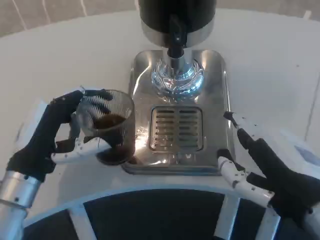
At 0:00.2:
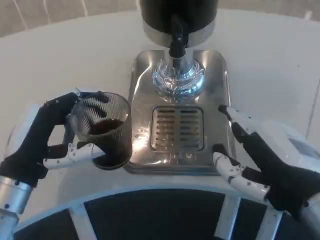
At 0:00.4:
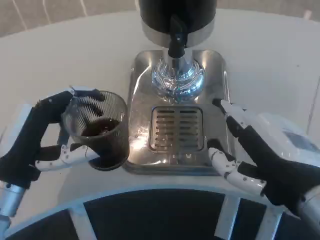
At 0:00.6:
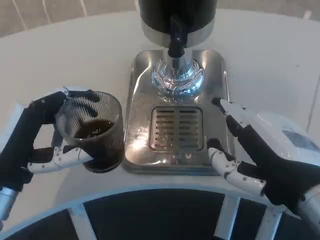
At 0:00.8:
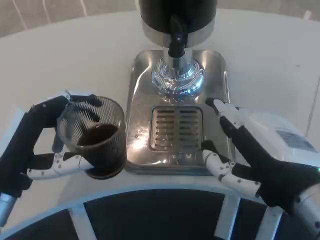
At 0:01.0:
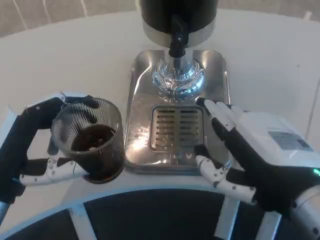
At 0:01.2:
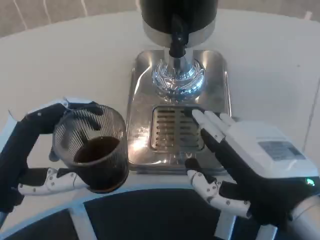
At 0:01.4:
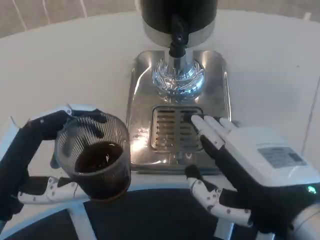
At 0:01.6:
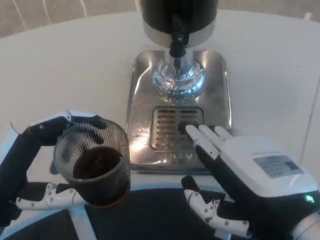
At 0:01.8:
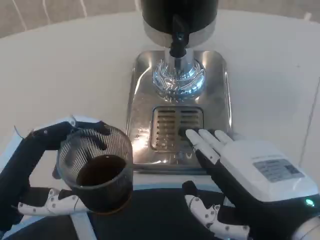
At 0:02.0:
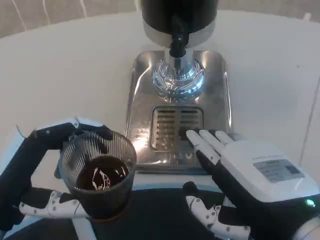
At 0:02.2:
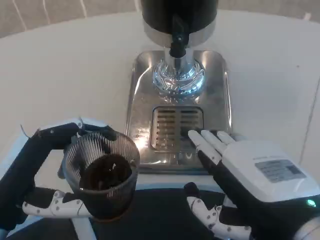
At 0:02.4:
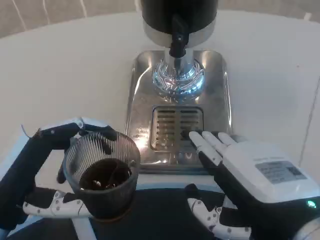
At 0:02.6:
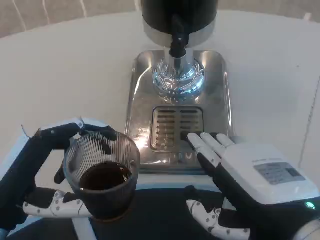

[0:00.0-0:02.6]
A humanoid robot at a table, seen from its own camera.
Task of the whole recording: Grasp the cup under the faucet to collect the drink, then remove the cup.
0:00.0 to 0:01.2: The left hand heads backward, covering roughly 5 cm.

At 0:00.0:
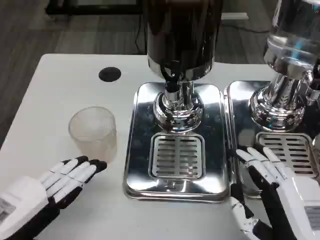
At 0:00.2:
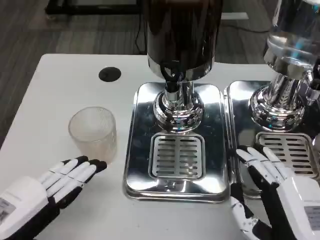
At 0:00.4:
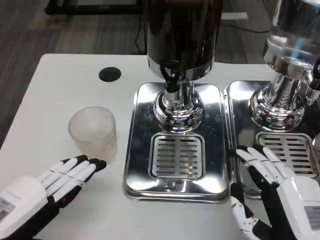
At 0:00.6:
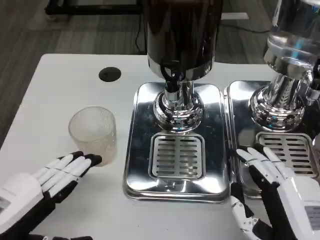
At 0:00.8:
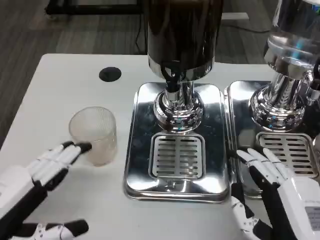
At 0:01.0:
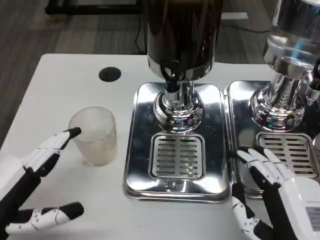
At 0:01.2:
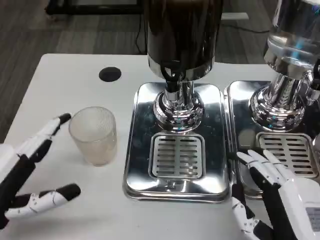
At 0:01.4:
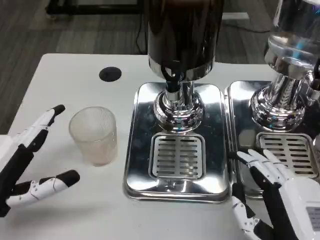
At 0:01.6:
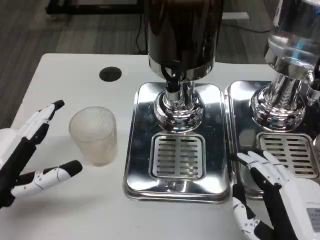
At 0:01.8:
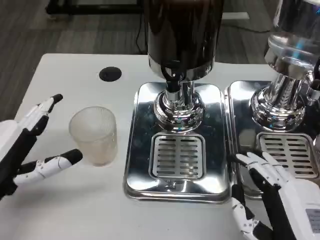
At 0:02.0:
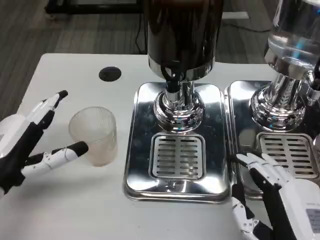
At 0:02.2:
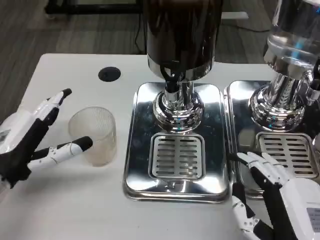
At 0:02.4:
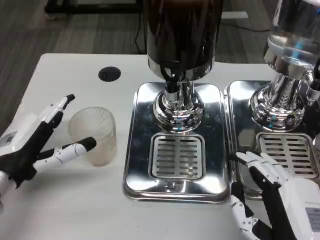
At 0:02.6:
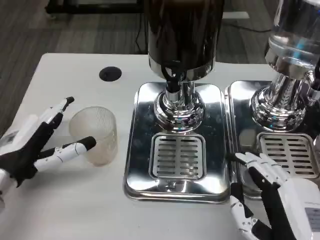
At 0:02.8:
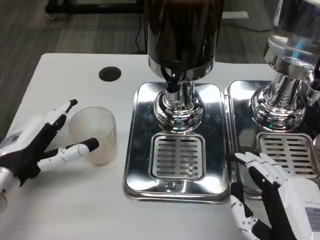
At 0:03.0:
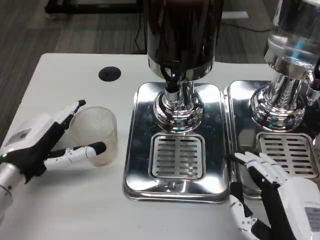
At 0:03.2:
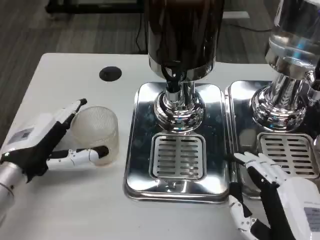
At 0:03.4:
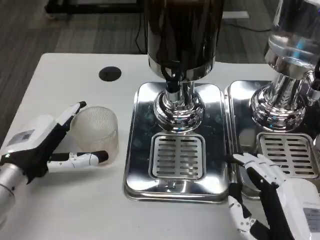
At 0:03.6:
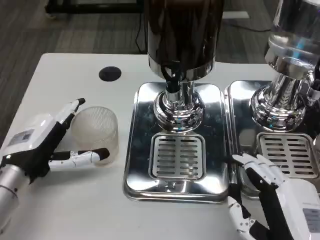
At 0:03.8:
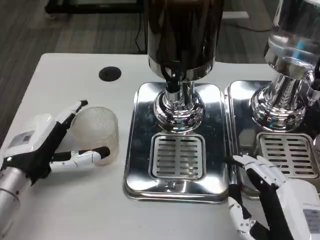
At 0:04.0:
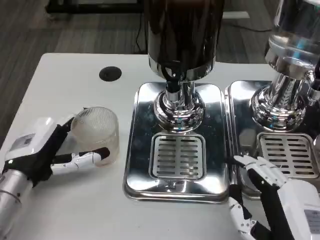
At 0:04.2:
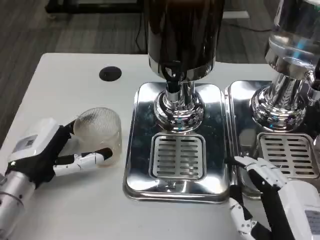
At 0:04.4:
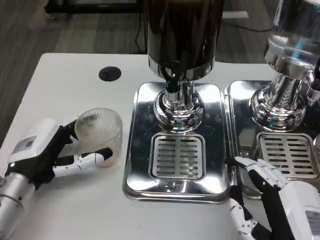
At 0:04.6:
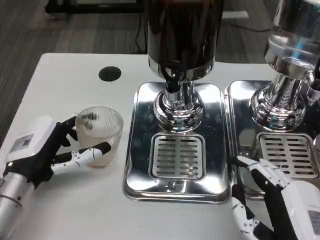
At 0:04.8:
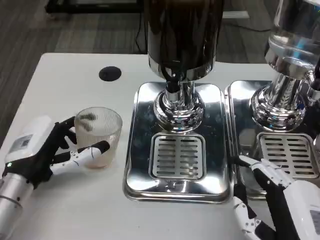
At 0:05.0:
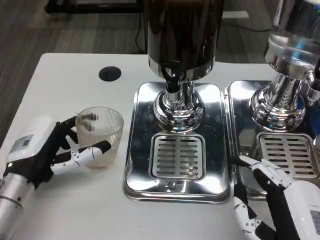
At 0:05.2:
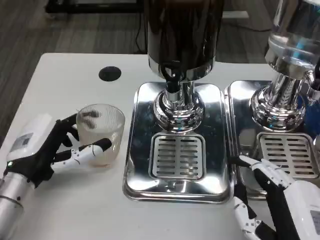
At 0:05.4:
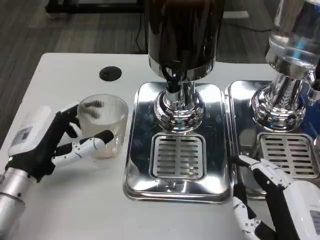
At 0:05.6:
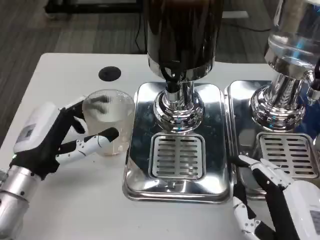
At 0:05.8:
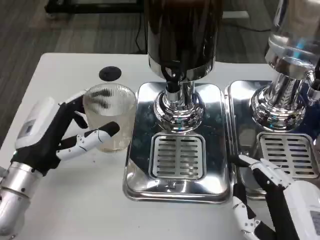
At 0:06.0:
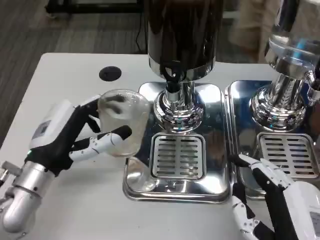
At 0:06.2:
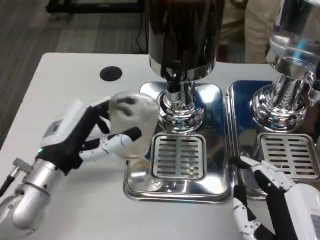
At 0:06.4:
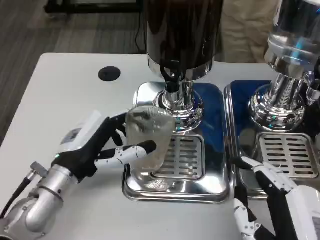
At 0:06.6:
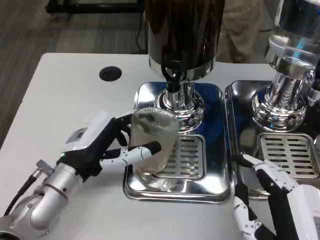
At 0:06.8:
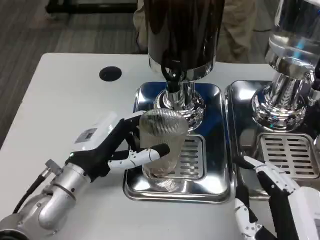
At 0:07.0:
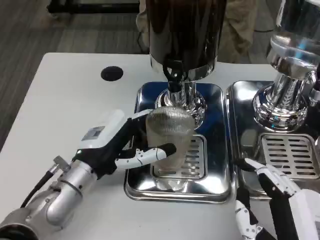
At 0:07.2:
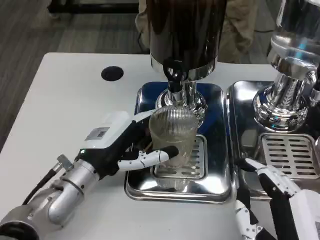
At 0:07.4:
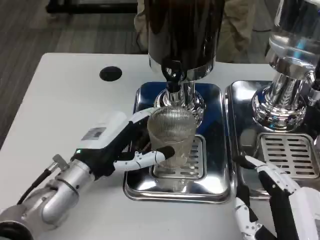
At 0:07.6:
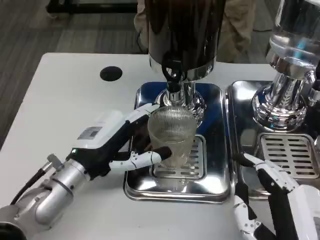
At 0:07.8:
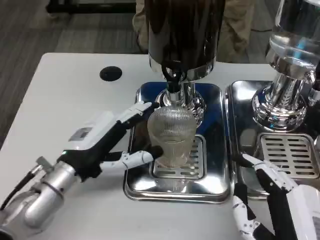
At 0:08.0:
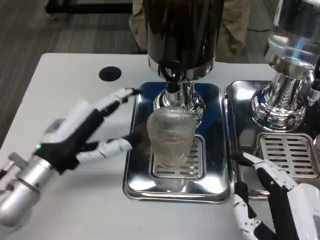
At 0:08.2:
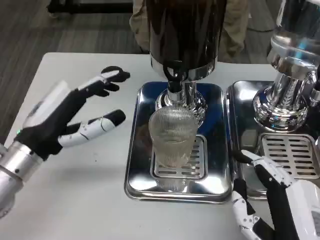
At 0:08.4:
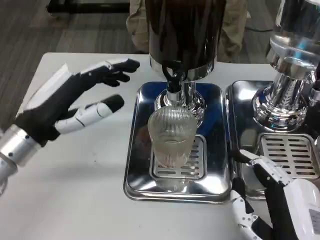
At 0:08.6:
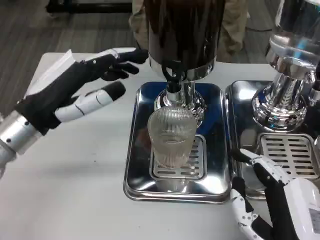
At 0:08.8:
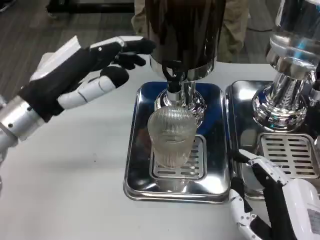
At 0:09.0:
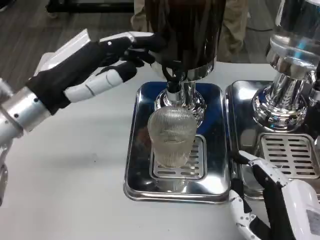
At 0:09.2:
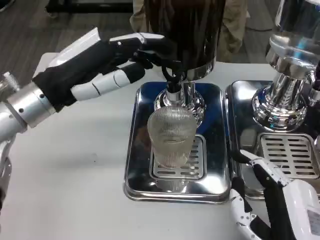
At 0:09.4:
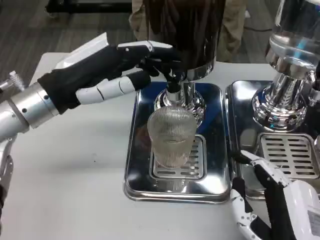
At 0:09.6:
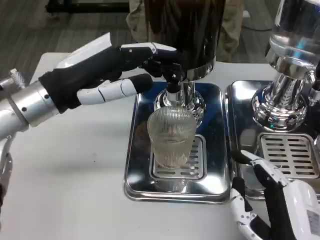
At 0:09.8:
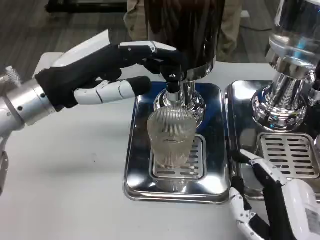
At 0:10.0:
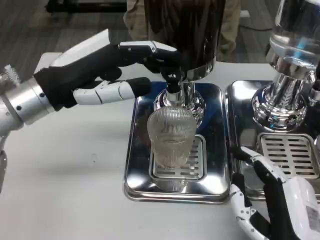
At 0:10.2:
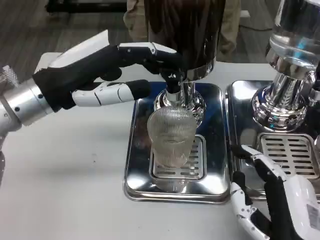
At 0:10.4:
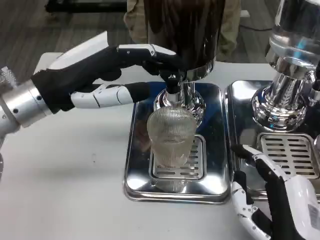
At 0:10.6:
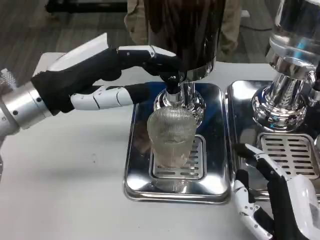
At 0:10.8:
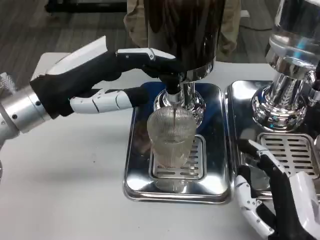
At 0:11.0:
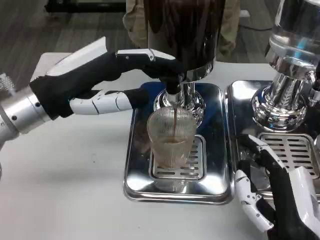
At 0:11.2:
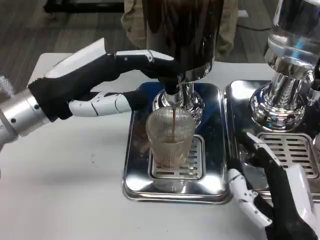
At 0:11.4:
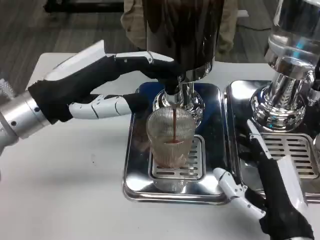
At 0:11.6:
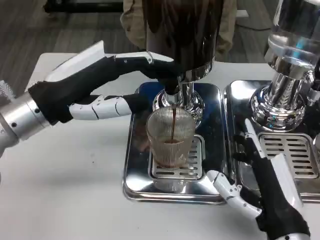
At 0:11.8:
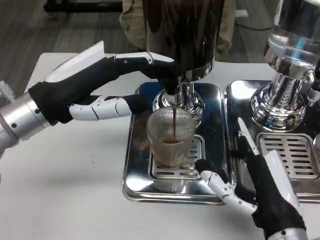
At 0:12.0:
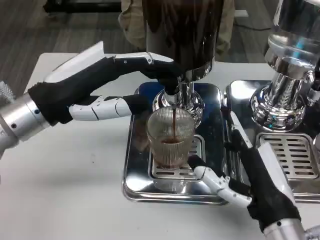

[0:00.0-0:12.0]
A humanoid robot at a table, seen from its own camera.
Task of the whole recording: Grasp the cup under the faucet to collect the drink, then remove the cup.
0:00.0 to 0:01.6: The left hand is displaced forward by approximately 5 cm.
0:01.6 to 0:03.0: The left hand moves forward, about 5 cm.
0:03.0 to 0:04.4: The hands make only small movements.
0:04.4 to 0:06.0: There are only small adjustments of the hands.
0:07.6 to 0:09.0: The left hand travels upward by about 10 cm.
0:10.4 to 0:12.0: The right hand moves forward, roughly 5 cm.

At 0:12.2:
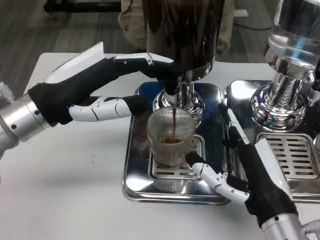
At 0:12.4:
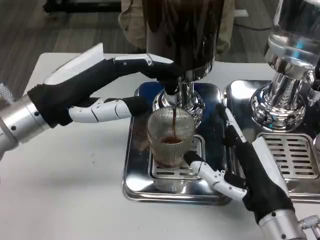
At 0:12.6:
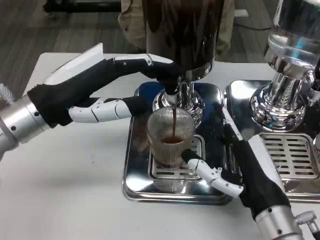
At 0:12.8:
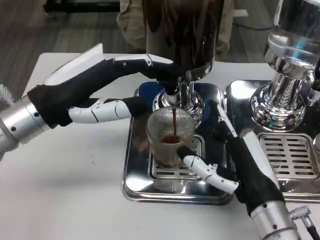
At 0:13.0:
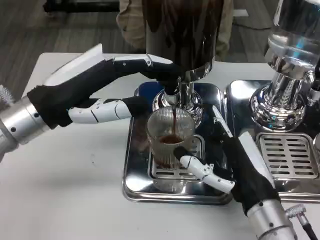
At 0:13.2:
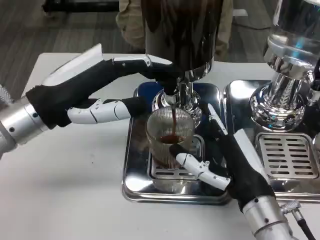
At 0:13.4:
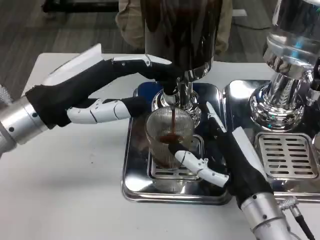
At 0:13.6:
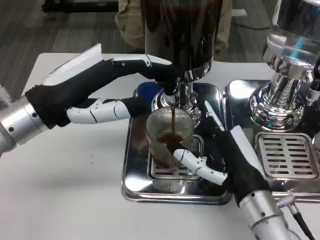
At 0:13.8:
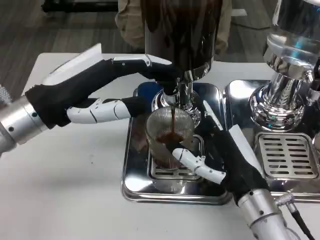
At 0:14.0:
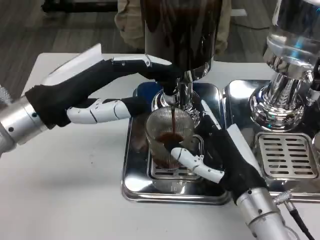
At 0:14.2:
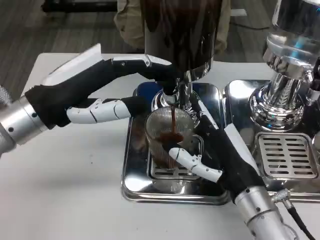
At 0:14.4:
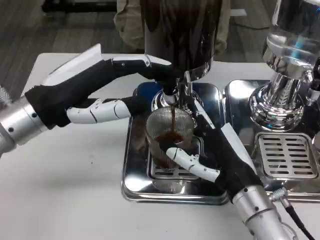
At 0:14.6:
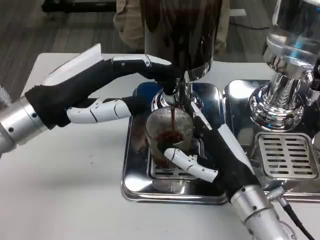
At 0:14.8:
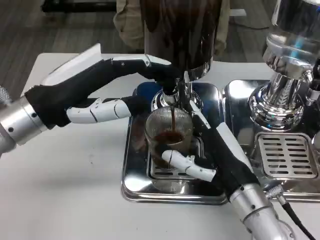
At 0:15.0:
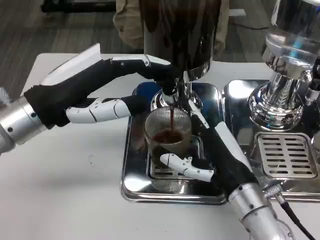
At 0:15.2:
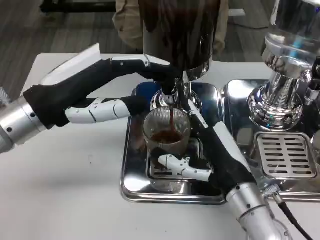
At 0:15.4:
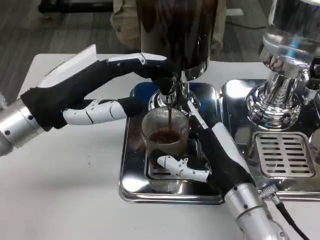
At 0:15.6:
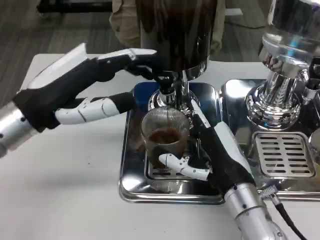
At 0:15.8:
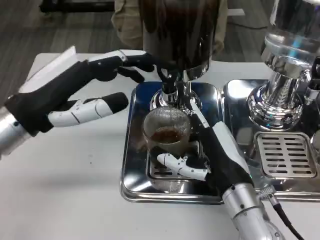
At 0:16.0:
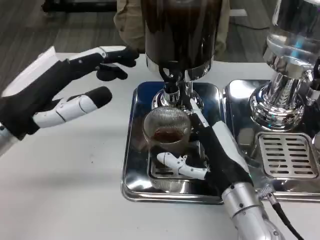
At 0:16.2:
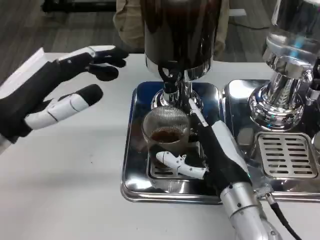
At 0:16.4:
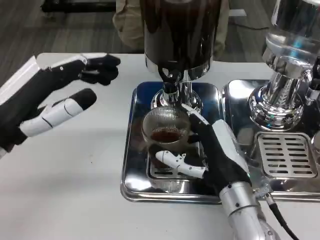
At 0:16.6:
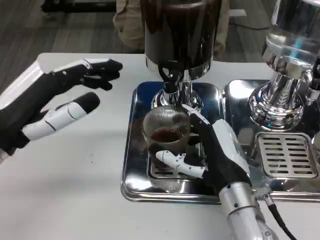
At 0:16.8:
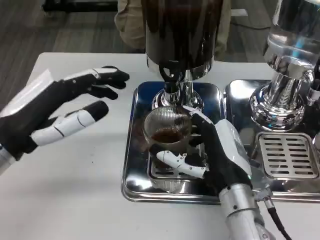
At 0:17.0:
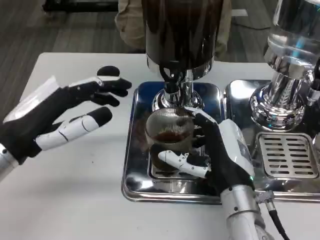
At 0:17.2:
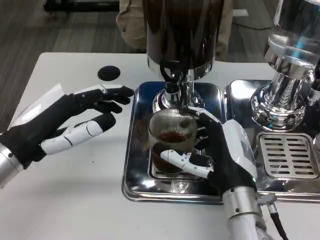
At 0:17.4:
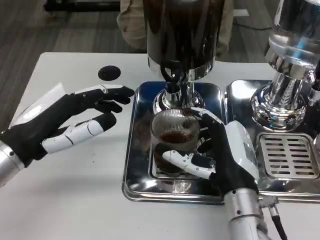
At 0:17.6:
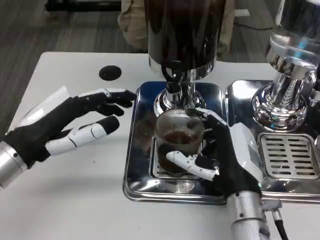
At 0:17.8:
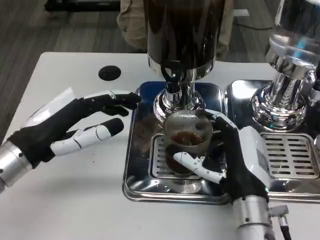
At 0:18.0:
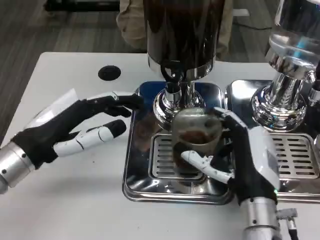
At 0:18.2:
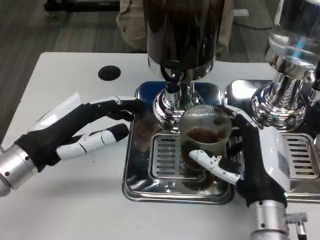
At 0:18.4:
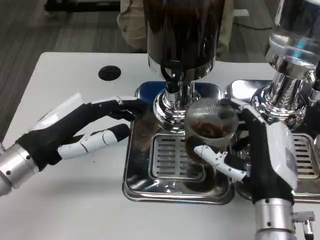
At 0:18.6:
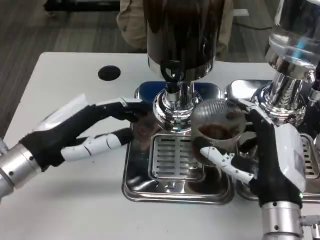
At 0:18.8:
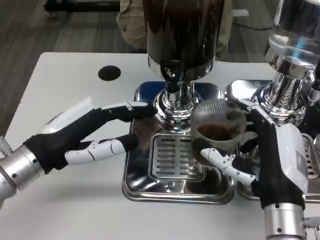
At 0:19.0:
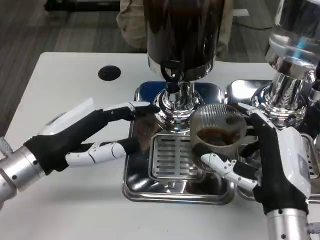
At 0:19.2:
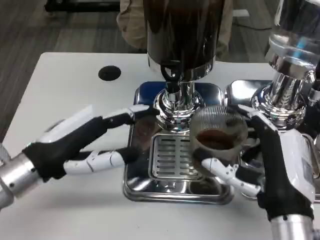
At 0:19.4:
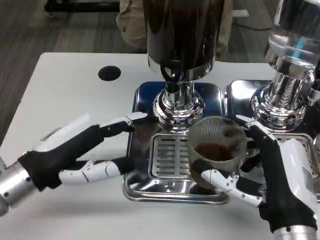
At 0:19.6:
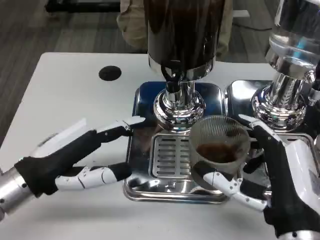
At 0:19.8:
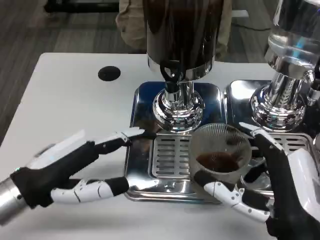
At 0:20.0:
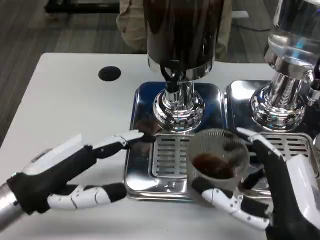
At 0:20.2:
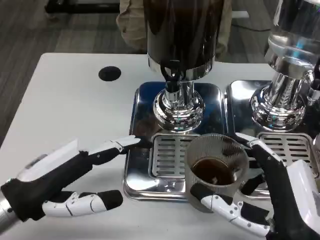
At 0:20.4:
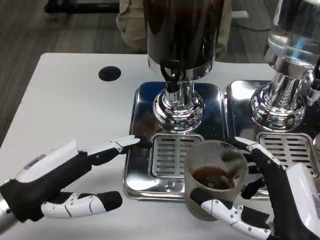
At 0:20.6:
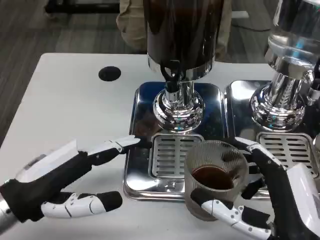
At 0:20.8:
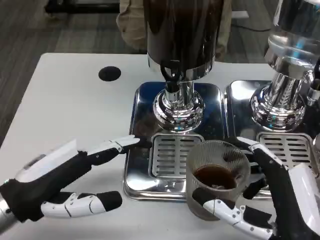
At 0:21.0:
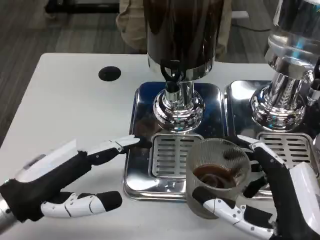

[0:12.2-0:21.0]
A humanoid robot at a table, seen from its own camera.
Task of the whole recording: Grasp the cup under the faucet to collect the drink, then remove the cup.
0:13.6 to 0:15.2: There are only small adjustments of the hands.
0:15.2 to 0:16.6: The left hand changes place by approximately 5 cm.
0:18.0 to 0:19.6: The right hand is displaced backward by roughly 5 cm.
